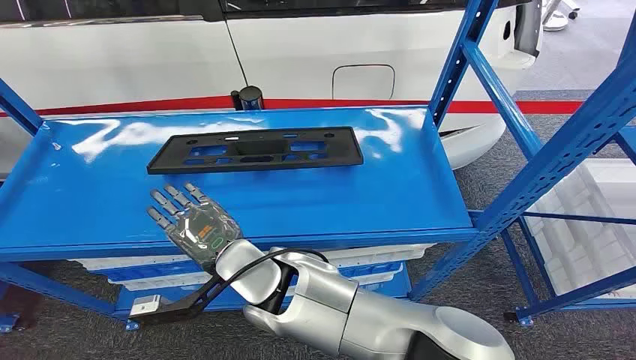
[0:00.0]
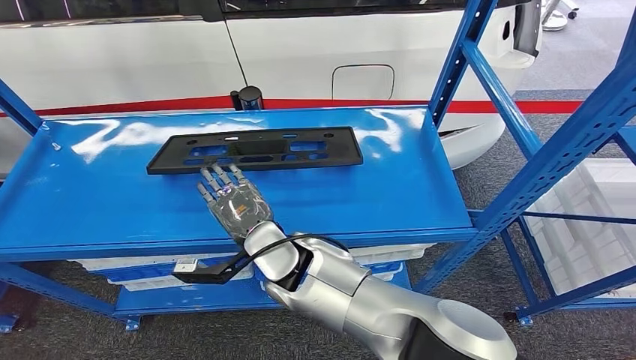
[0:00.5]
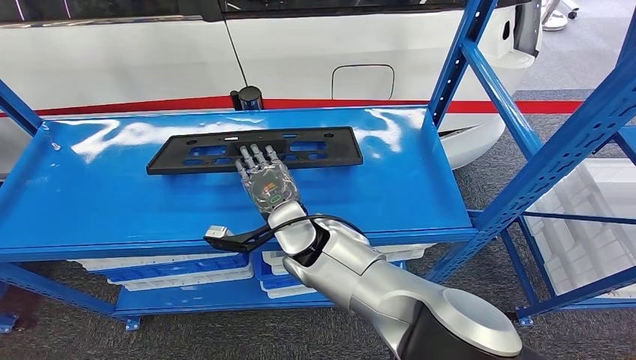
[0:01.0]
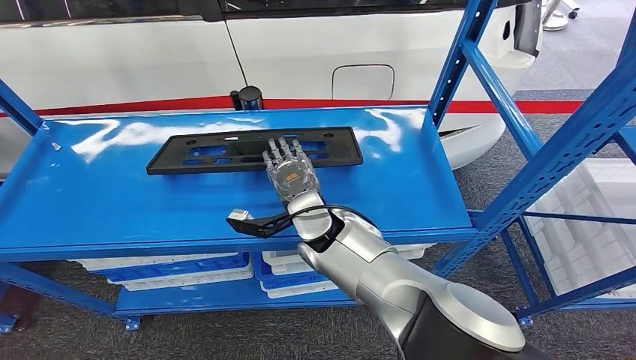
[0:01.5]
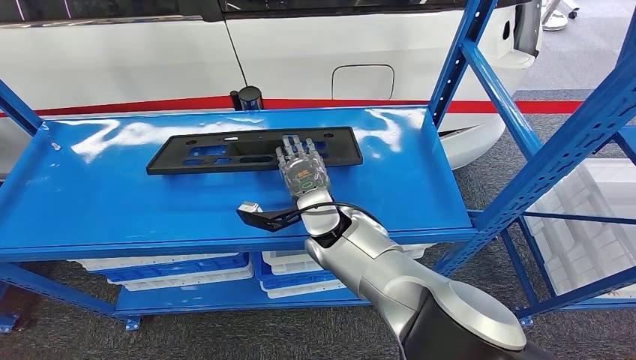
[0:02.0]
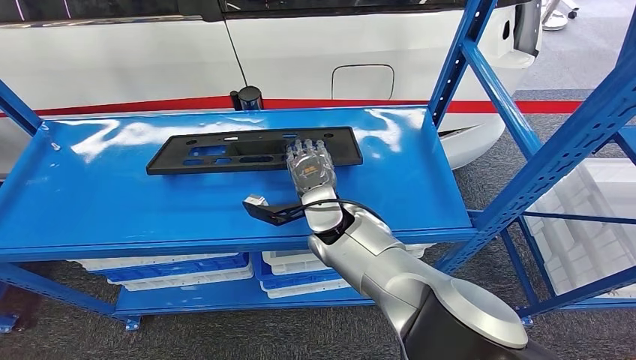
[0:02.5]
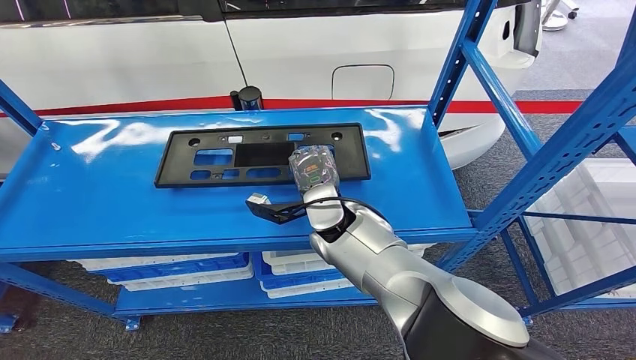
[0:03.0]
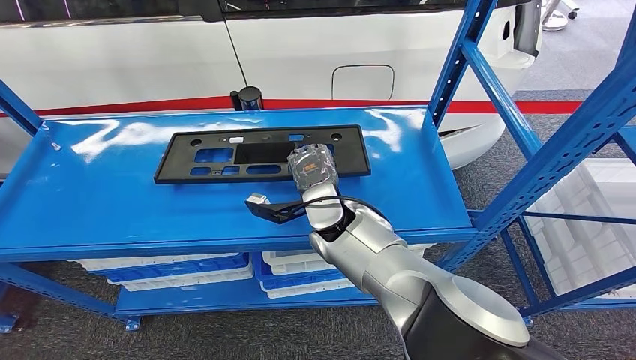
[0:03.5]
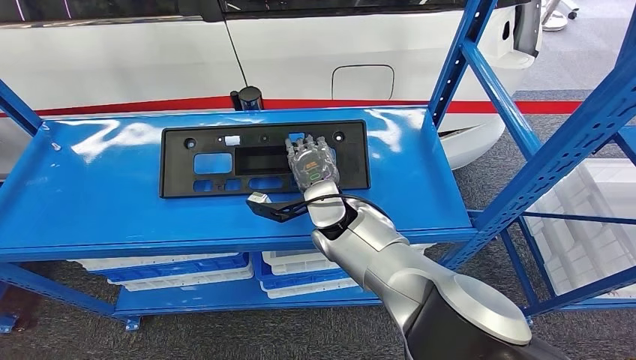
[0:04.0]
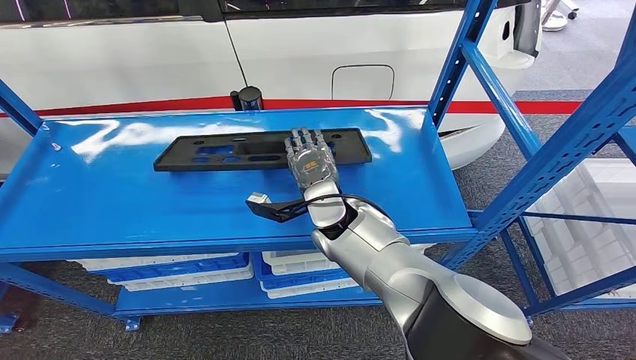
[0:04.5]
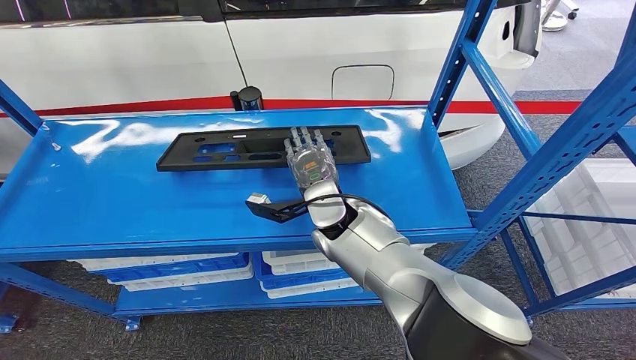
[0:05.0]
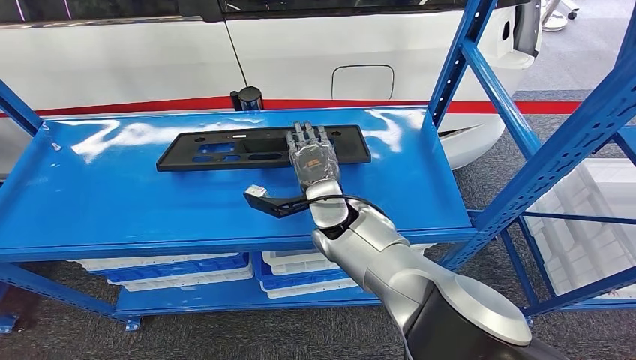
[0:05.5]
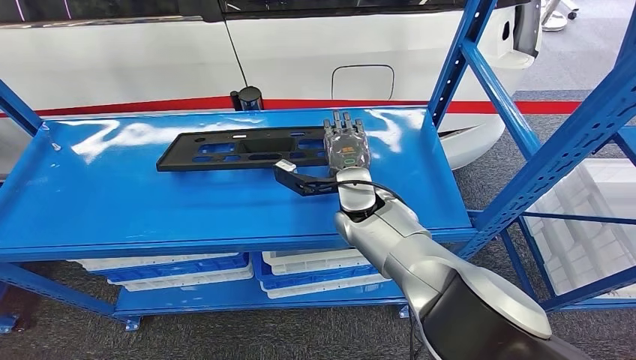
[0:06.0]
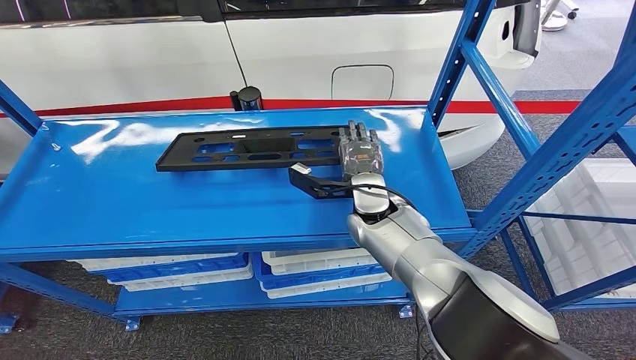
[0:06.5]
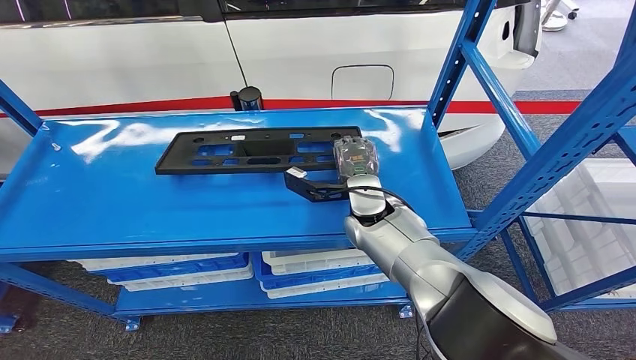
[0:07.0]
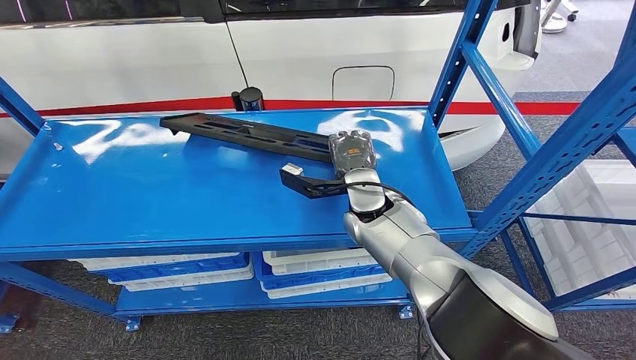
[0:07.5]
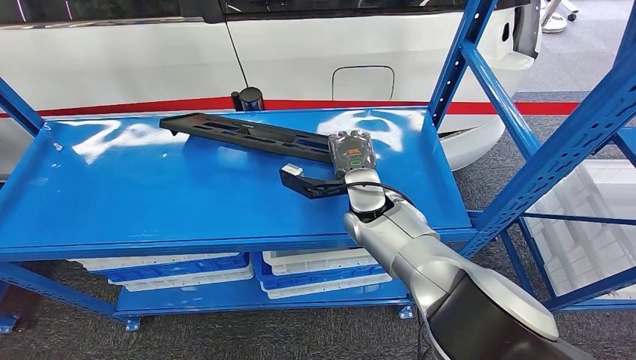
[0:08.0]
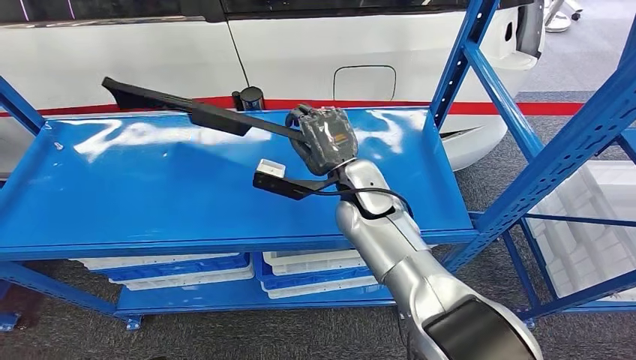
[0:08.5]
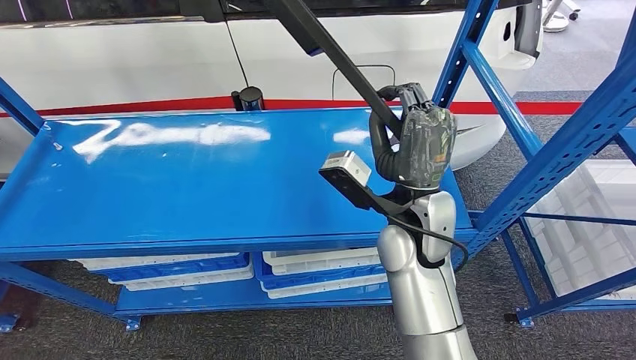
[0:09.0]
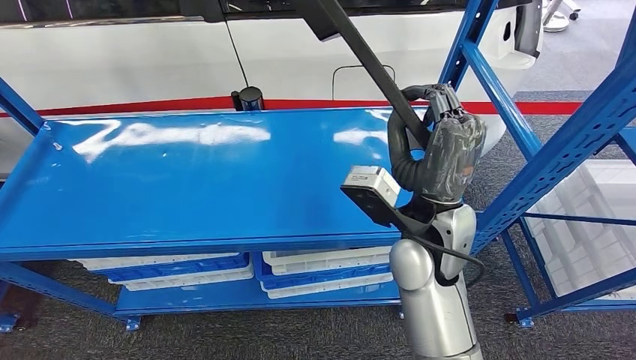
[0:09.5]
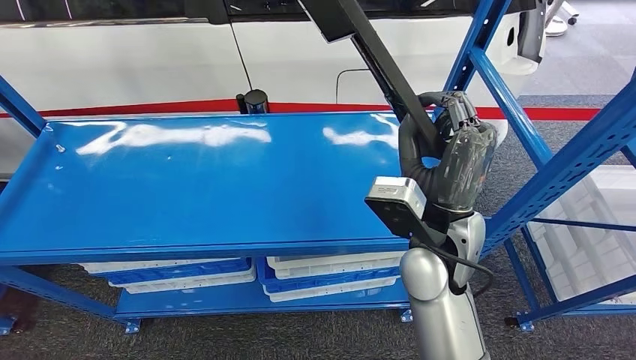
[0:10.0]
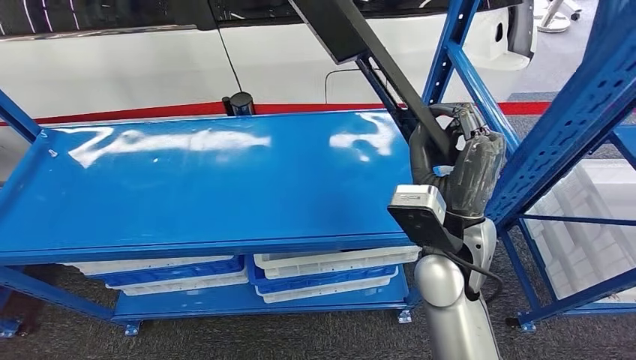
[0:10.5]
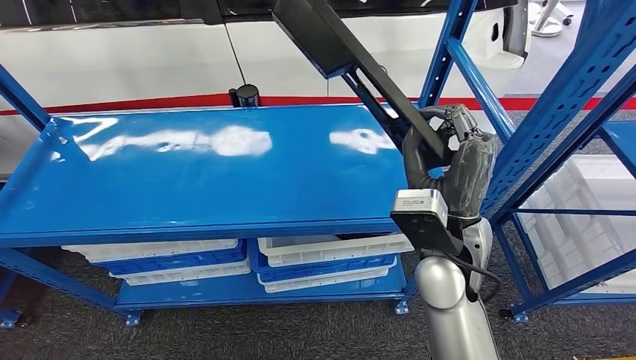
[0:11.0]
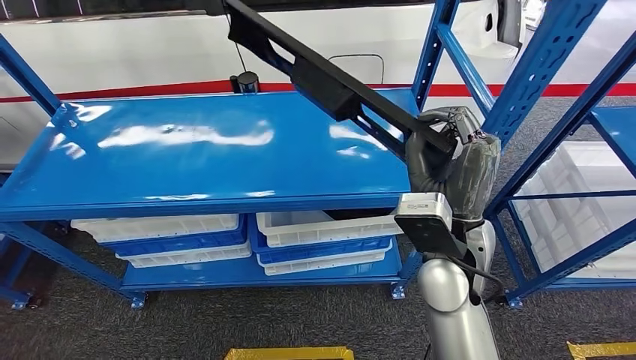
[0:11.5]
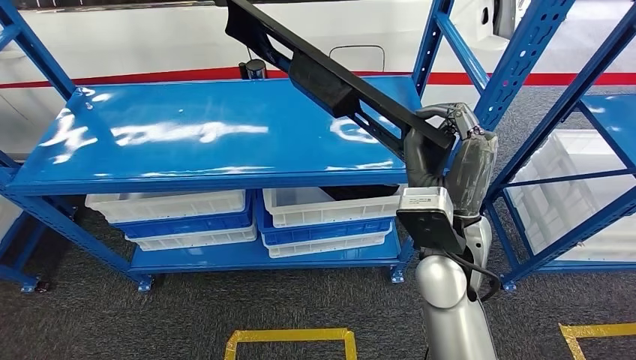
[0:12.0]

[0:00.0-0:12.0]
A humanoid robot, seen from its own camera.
Step, 0:00.0 to 0:09.0: Pick up the large parts from the shelf.
0:02.0 to 0:04.0: The hands move only a little.
0:04.0 to 0:06.0: The hands move only a little.
0:06.0 to 0:08.0: There are only small adjustments of the hands.

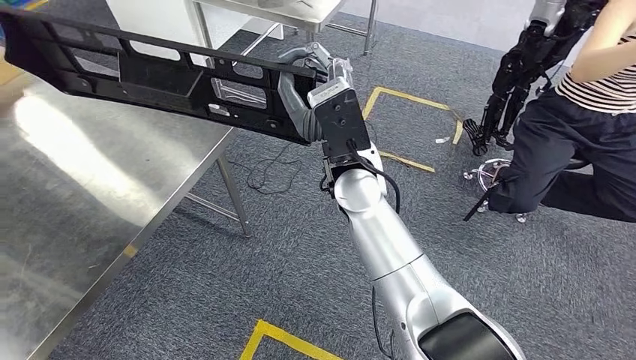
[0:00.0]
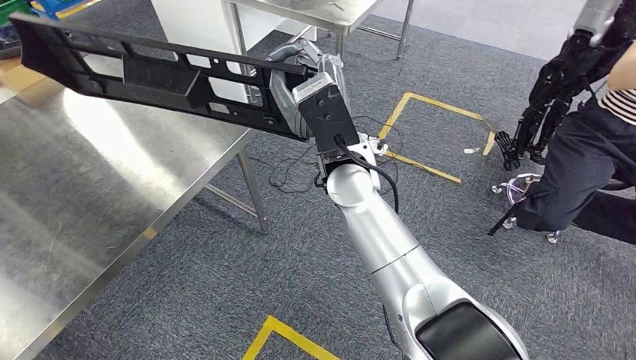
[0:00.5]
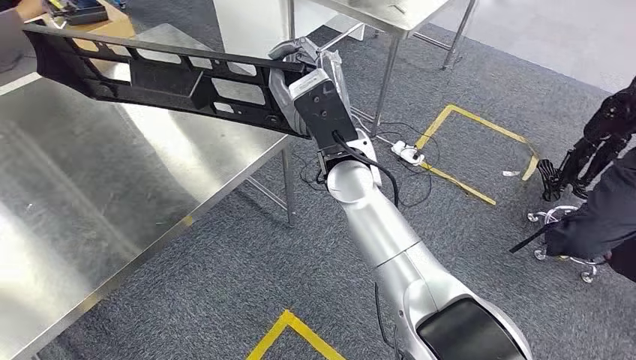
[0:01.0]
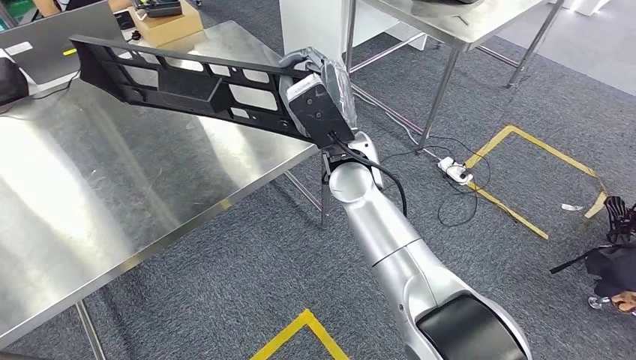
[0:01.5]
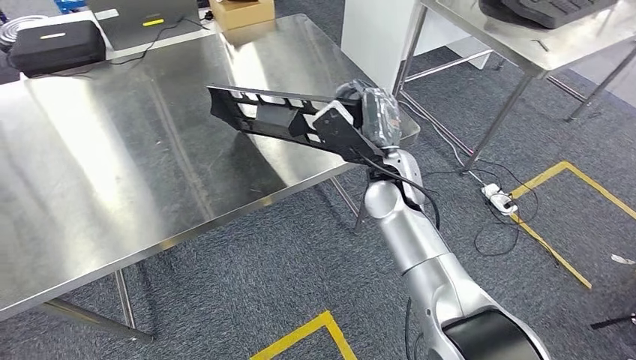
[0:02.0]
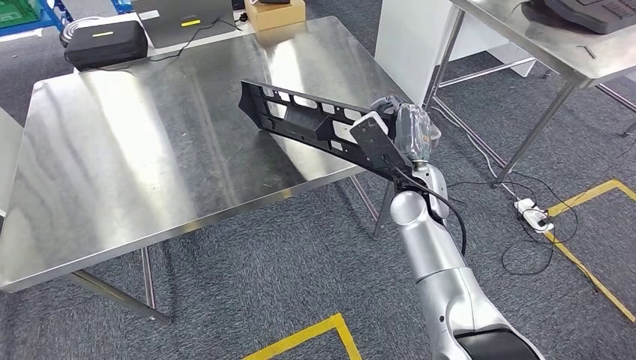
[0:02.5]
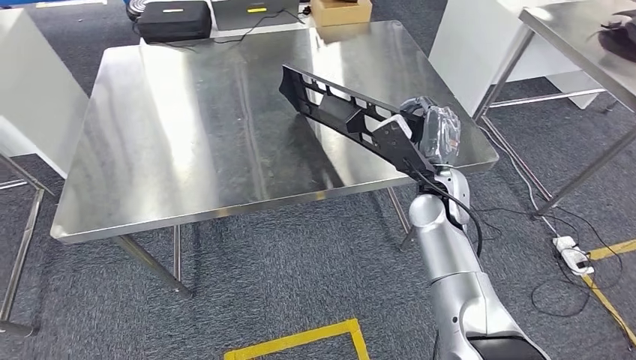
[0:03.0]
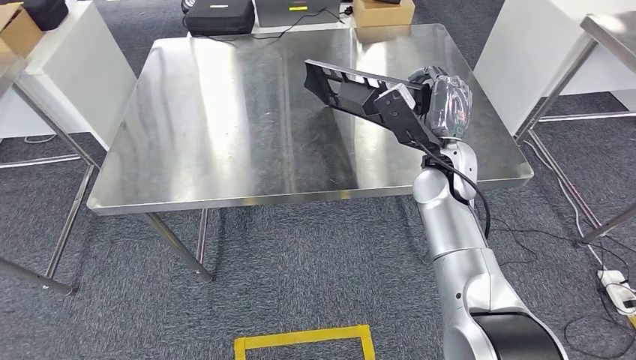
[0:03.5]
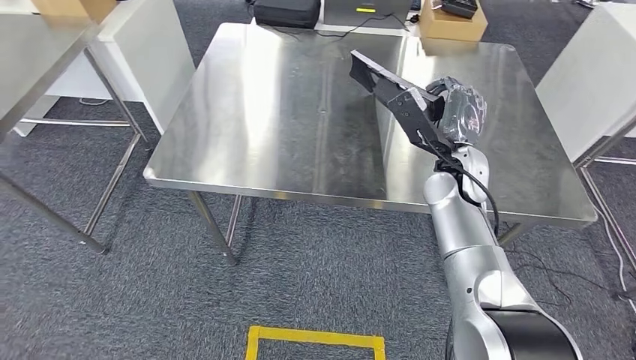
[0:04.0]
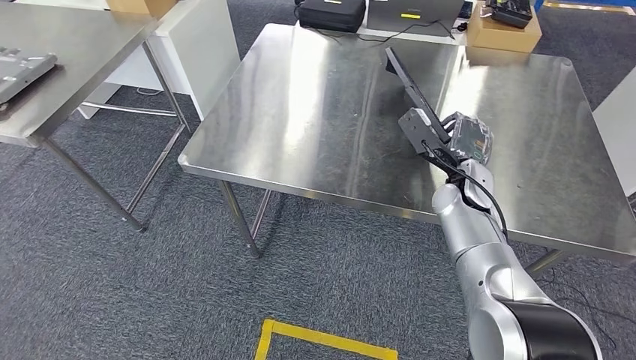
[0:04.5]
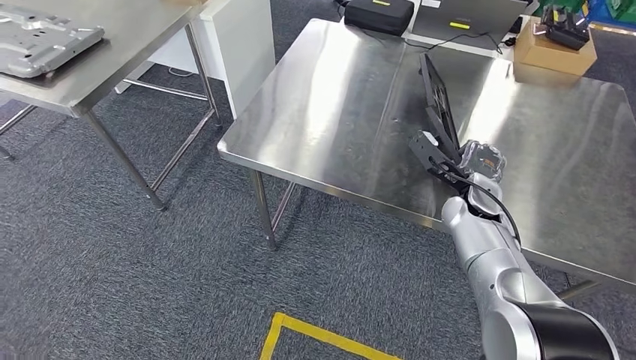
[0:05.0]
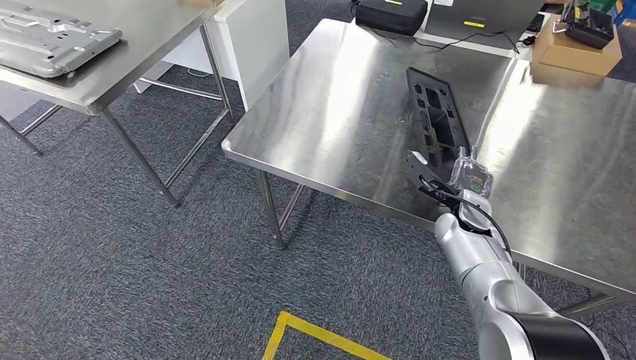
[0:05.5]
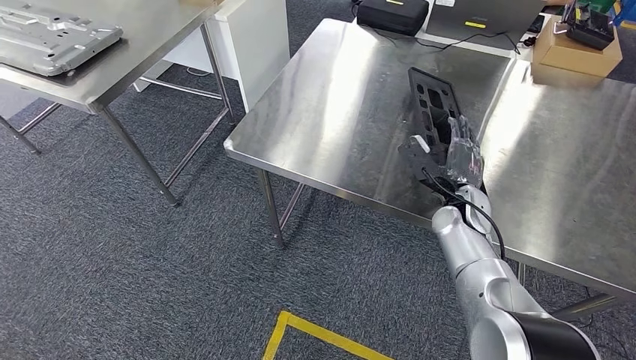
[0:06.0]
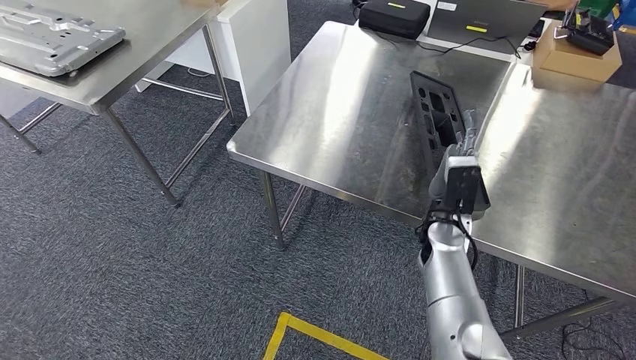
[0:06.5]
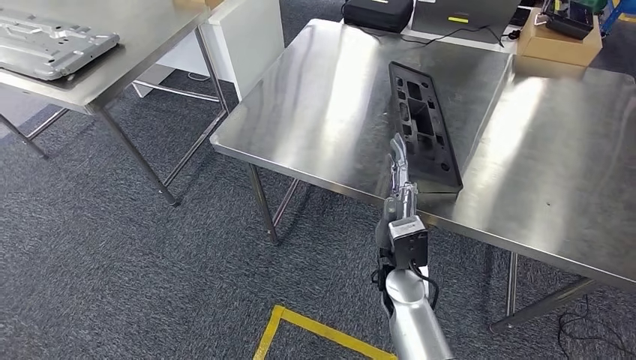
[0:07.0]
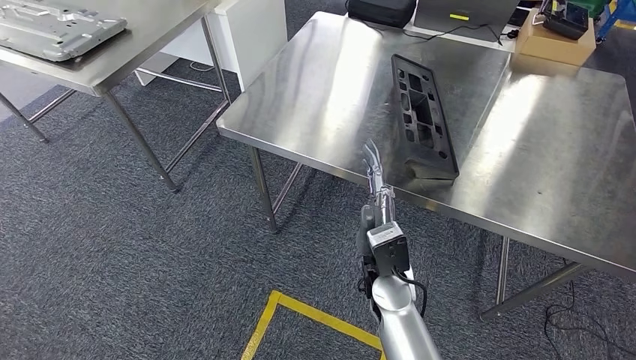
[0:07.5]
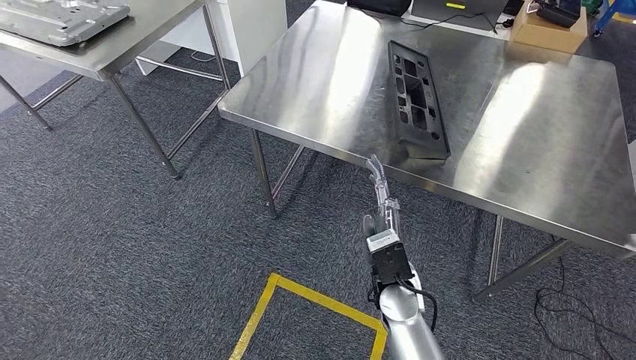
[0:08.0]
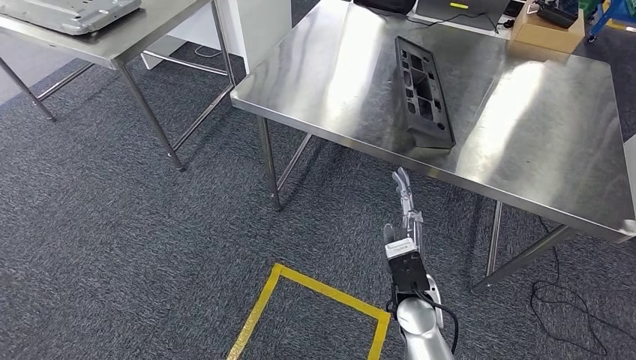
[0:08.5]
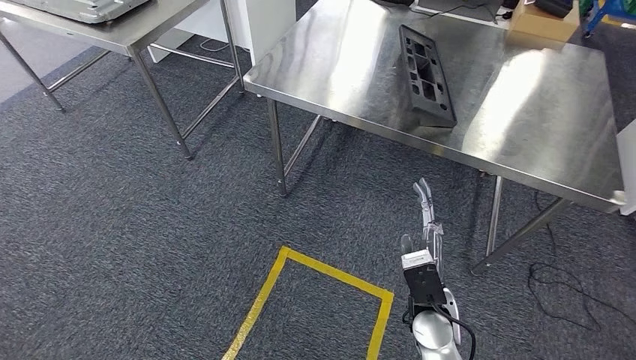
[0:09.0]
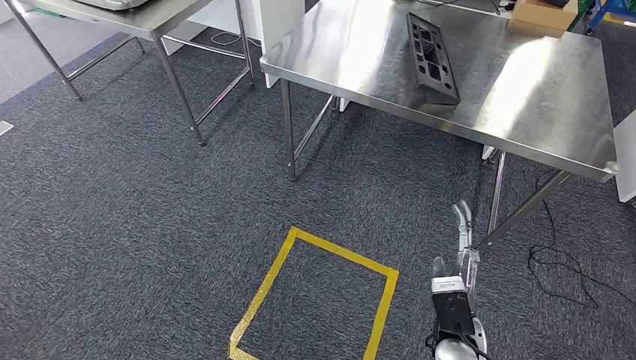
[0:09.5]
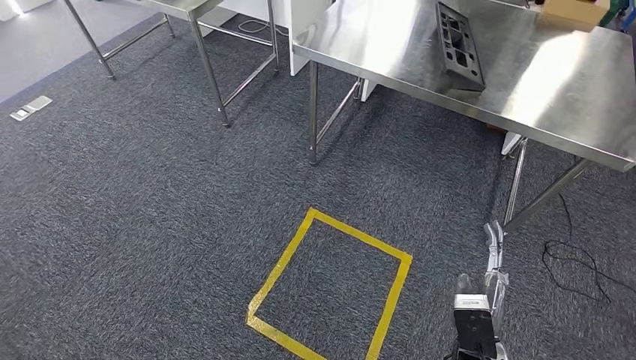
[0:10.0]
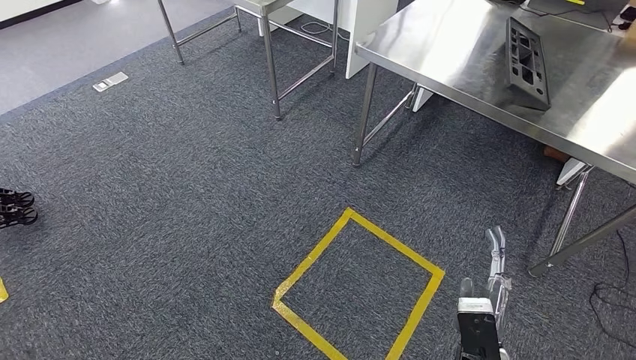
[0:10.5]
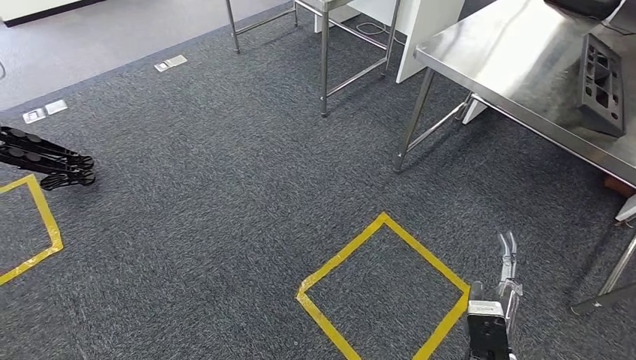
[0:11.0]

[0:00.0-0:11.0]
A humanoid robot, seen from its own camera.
Step, 0:02.0 to 0:08.5: Insert the large parts into the corresponding slots on the workbench.
